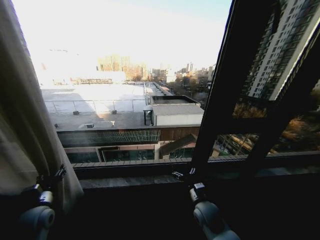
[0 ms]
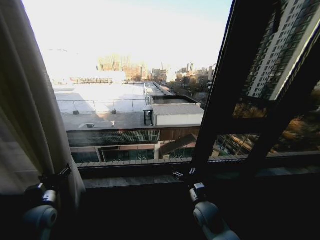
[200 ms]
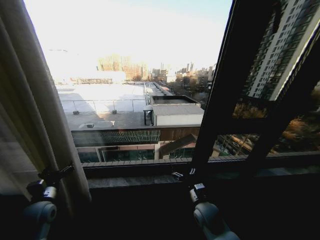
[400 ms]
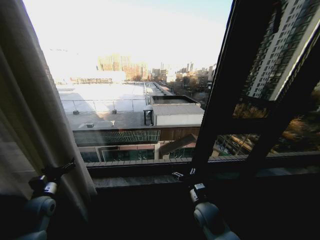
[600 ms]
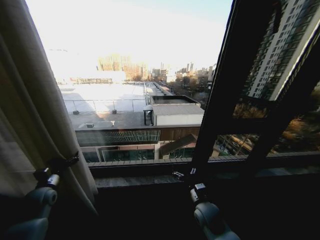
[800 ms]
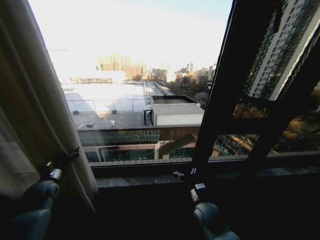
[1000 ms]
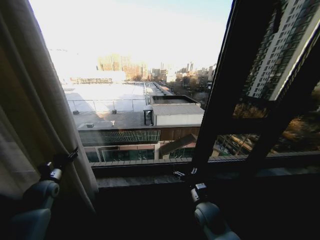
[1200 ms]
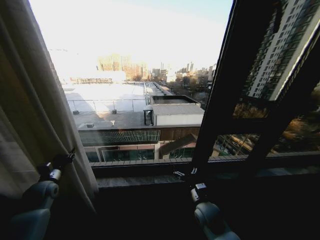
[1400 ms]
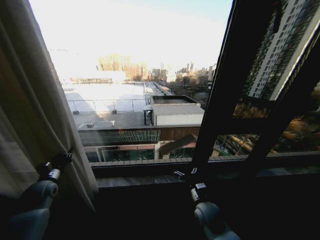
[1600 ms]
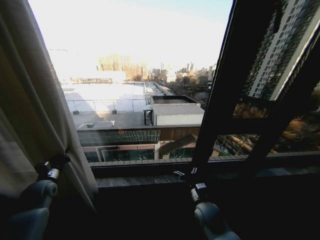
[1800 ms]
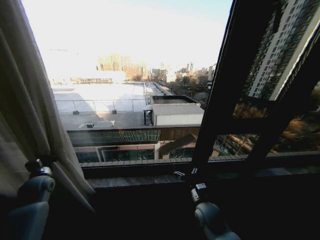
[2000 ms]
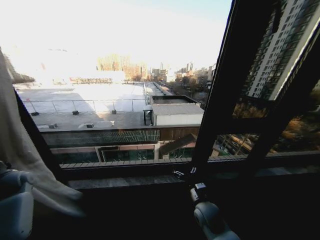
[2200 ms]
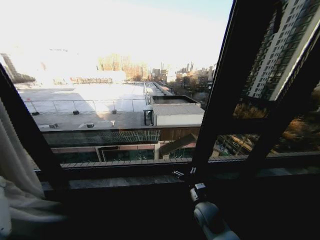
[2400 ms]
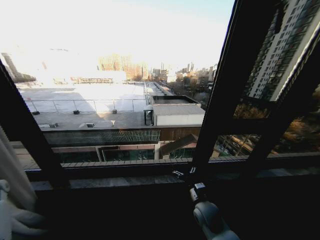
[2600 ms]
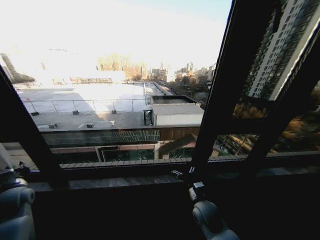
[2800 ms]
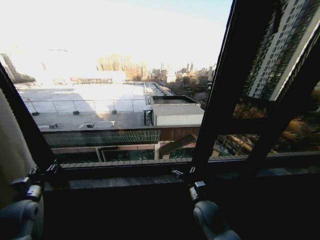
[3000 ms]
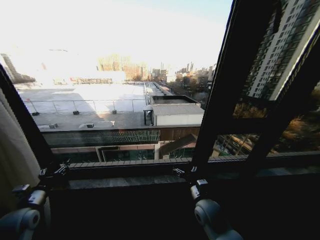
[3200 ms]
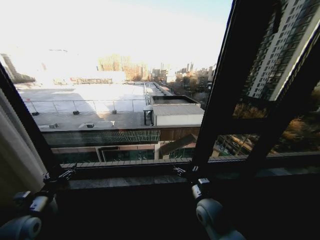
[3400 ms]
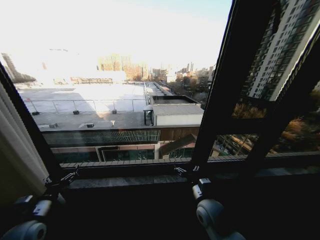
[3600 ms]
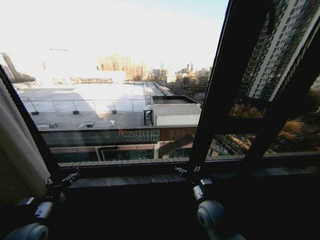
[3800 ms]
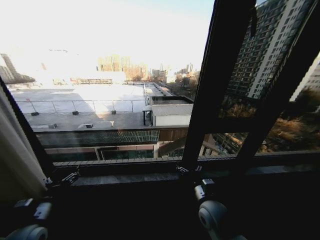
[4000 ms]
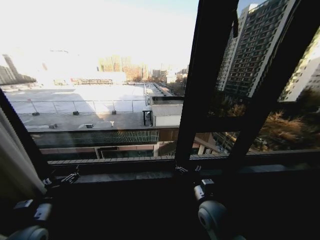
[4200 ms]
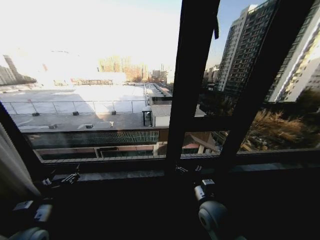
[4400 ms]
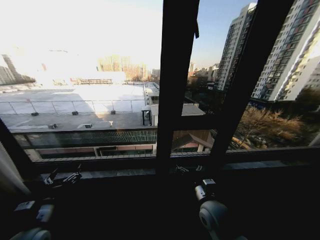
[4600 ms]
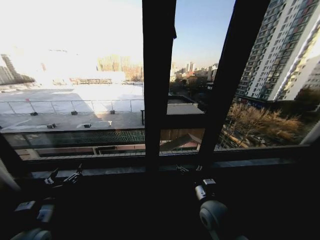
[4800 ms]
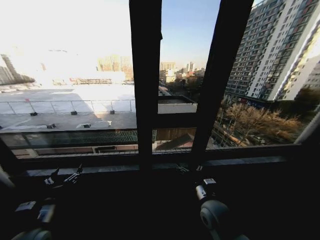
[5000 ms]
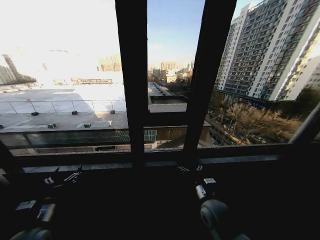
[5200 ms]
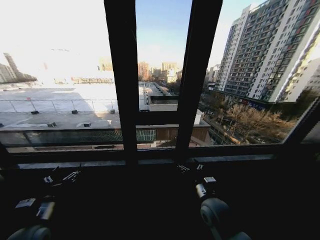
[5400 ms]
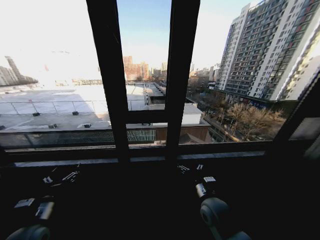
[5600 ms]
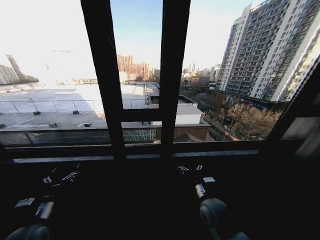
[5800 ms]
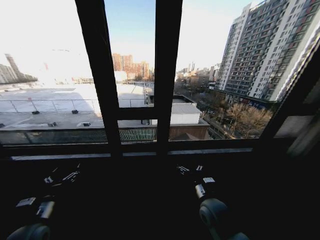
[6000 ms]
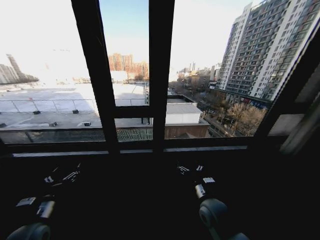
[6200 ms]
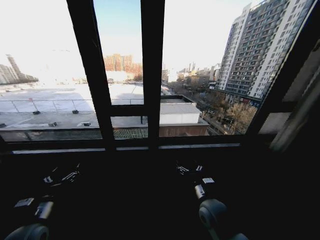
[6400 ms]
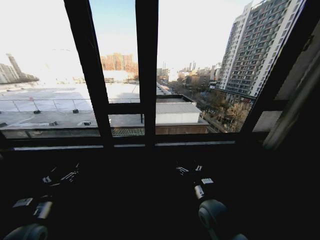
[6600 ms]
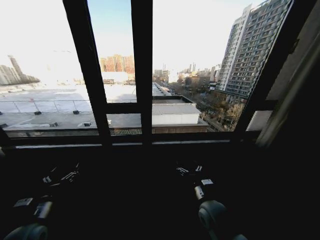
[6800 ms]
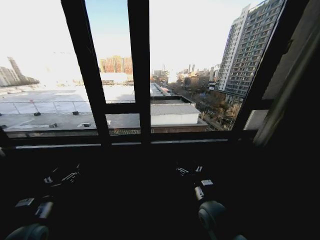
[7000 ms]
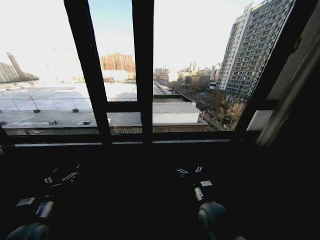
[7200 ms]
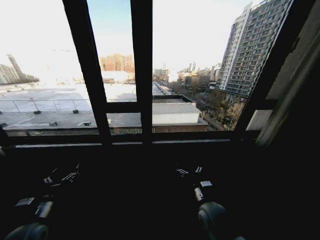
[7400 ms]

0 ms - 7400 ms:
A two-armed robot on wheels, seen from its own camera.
Task of the whole recording: Open the curtains by pulling them apart, changing their state from closed to fully open.
0 ms - 1400 ms: The left gripper shifts approximately 10 cm forward, and opens and closes again.
1400 ms - 3000 ms: The left gripper is displaced backward by some 10 cm, goes to the left and returns, some 20 cm each way, and closes, then reopens.
3000 ms - 4400 ms: The left gripper travels to the right and backward by approximately 10 cm, and opens its fingers. The right gripper is displaced upward by roughly 5 cm.

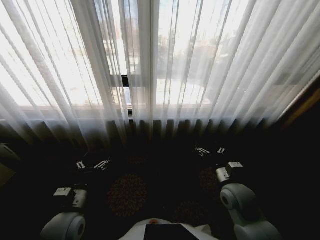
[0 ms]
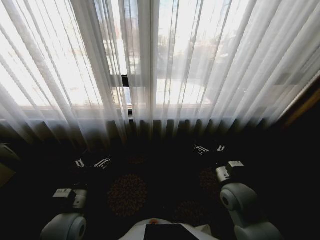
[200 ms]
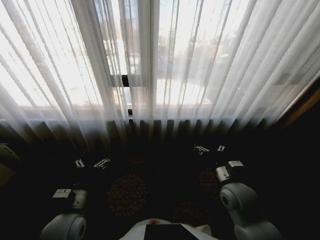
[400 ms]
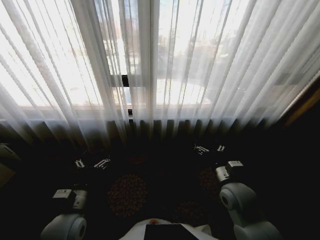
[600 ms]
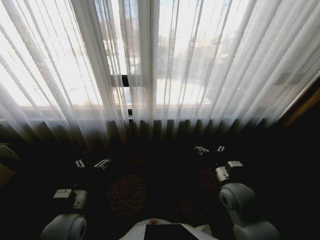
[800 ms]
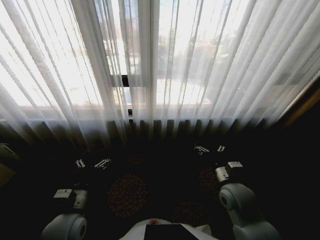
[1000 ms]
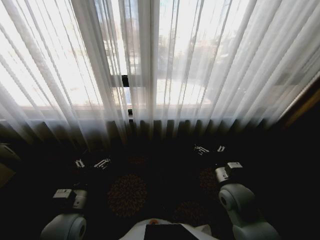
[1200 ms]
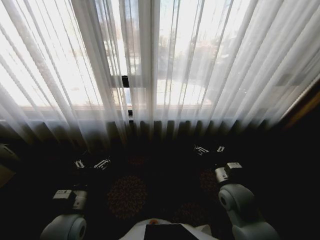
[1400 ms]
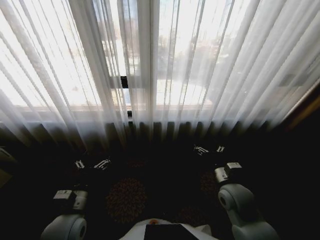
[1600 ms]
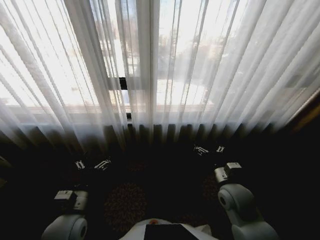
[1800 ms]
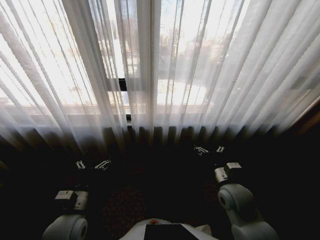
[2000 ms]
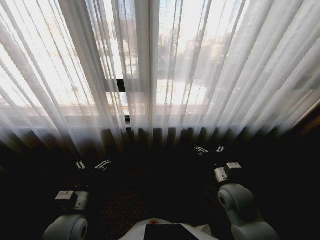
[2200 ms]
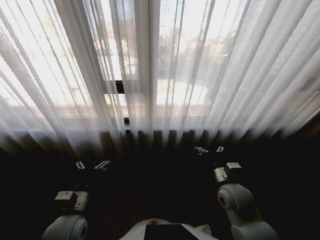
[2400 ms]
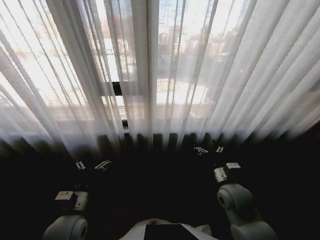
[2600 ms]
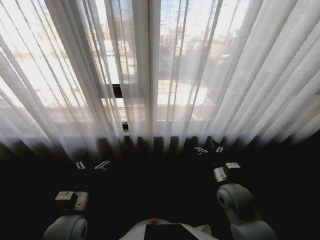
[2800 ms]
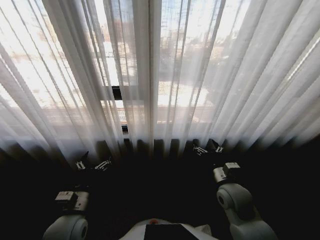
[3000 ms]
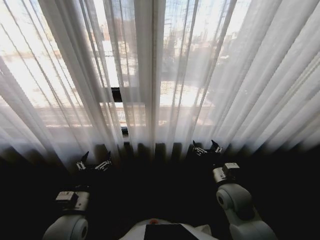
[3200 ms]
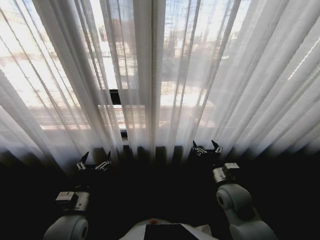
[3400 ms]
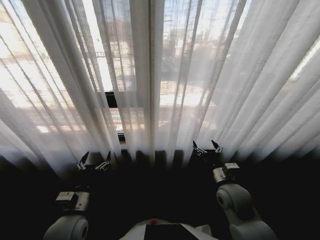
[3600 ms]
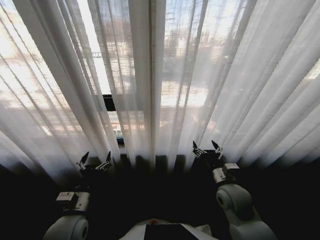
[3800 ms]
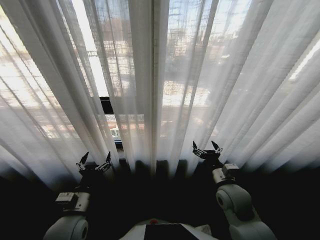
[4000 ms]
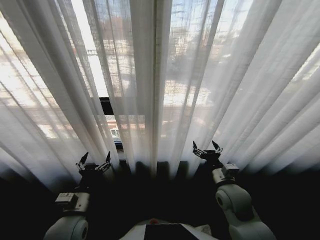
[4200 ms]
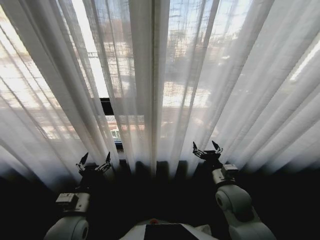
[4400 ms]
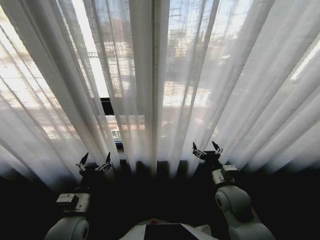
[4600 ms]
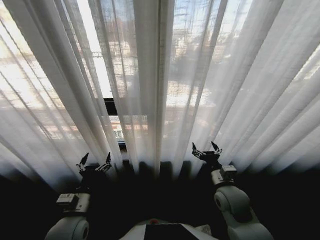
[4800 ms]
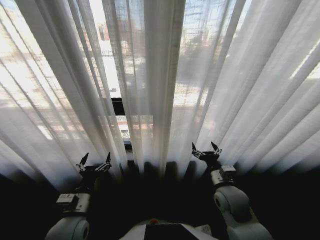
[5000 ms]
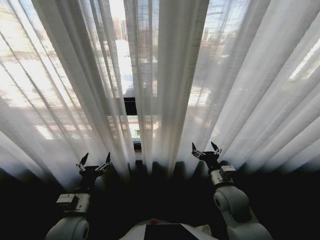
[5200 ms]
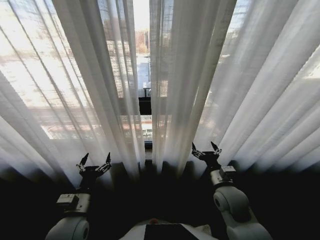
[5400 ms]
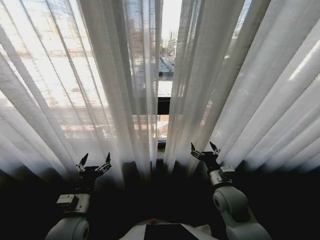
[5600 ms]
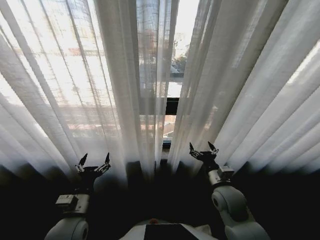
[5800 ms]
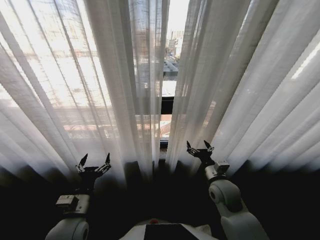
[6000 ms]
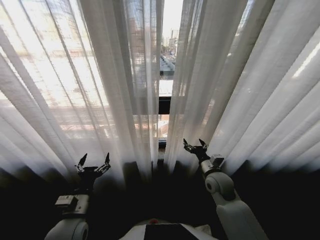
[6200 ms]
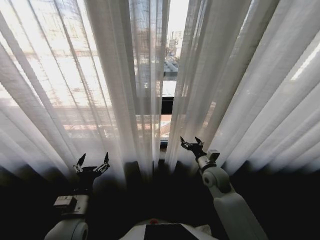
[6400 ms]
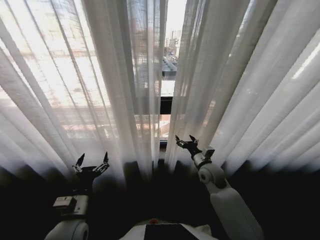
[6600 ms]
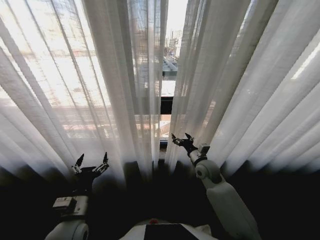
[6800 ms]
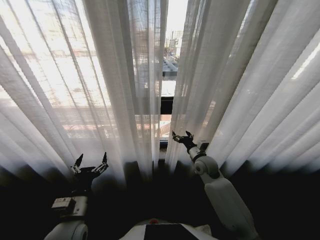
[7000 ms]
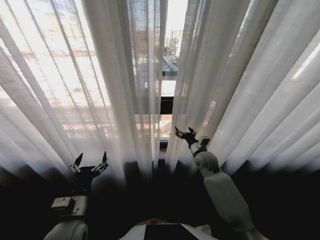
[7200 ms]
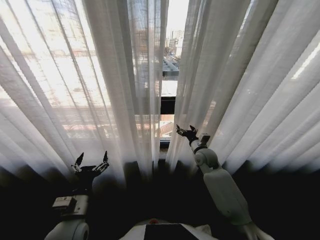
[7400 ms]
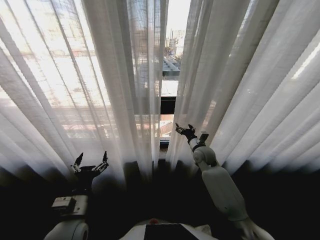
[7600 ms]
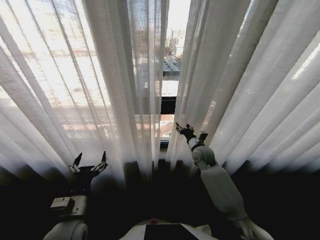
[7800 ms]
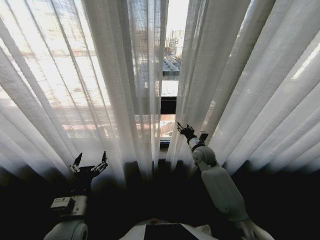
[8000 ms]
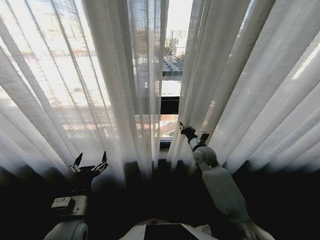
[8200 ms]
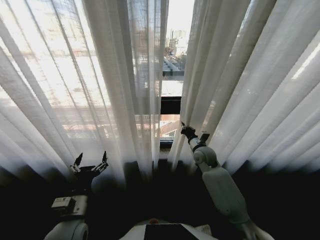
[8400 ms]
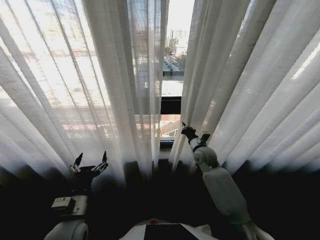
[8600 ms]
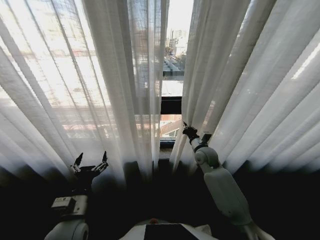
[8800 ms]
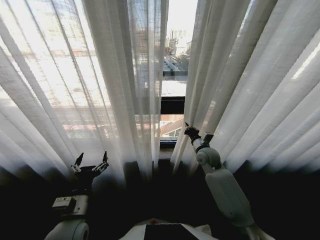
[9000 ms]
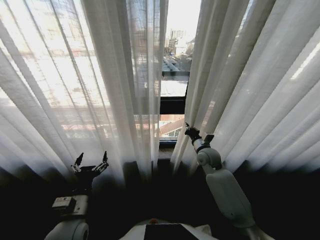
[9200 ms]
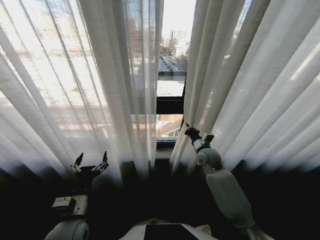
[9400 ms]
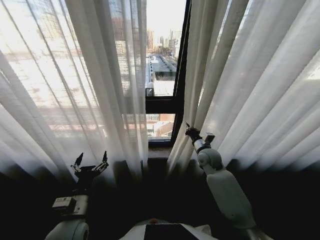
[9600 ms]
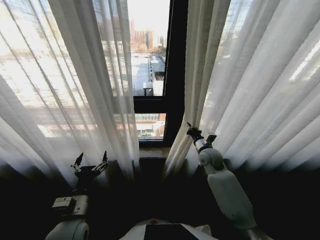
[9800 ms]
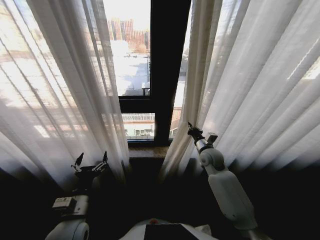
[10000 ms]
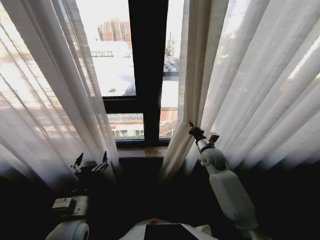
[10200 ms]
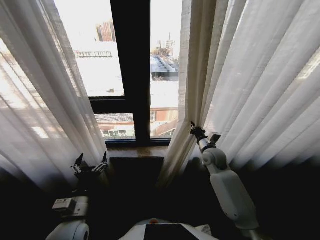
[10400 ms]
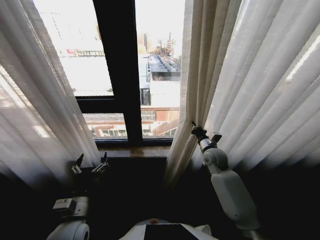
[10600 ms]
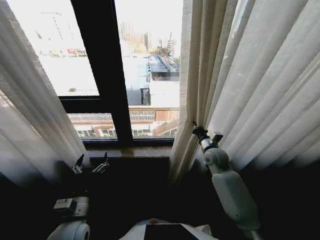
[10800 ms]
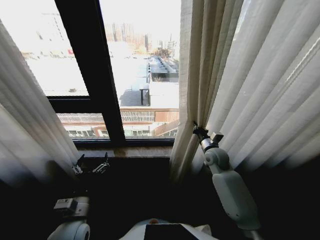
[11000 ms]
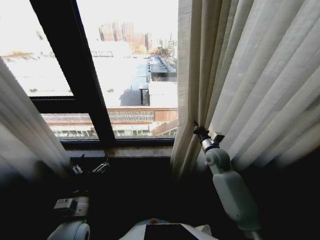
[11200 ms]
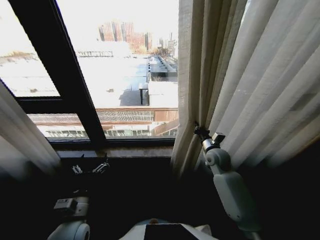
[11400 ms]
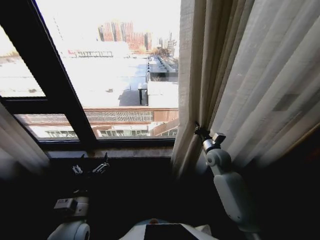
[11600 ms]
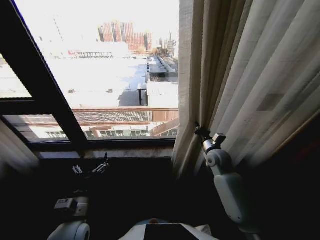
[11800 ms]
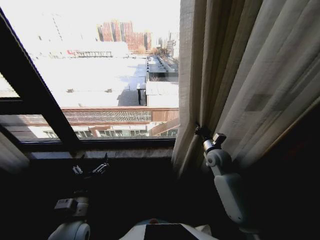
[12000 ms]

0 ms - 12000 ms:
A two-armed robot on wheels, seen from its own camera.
Task of the whole recording: Open the curtains by pulling them apart, changing their state from closed to fully open.
6000 ms - 7600 ms: The right gripper goes approximately 15 cm forward.
7600 ms - 9000 ms: The right gripper closes up.

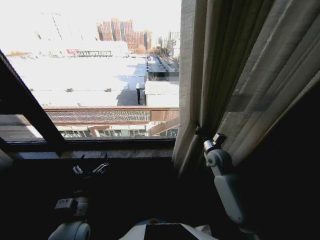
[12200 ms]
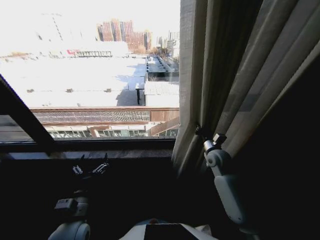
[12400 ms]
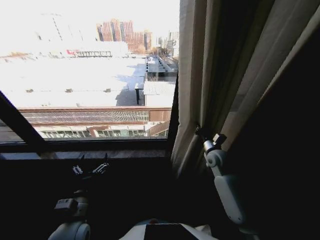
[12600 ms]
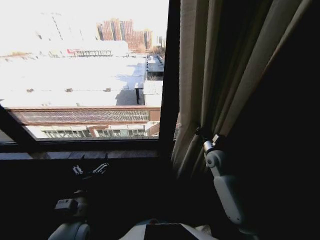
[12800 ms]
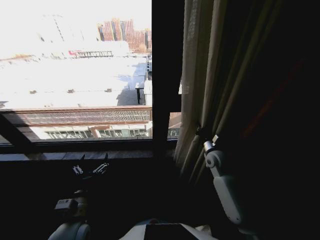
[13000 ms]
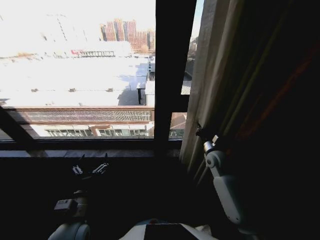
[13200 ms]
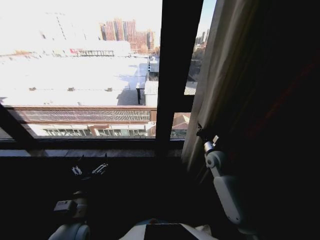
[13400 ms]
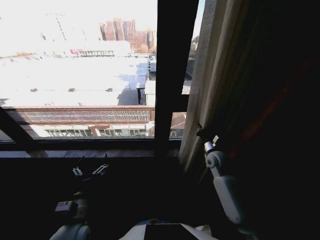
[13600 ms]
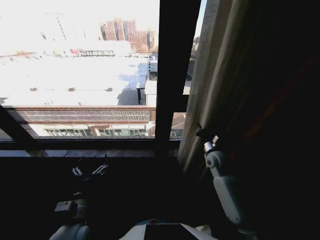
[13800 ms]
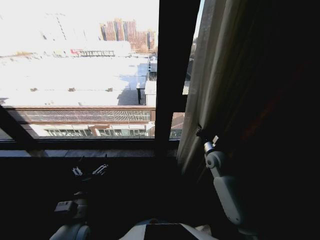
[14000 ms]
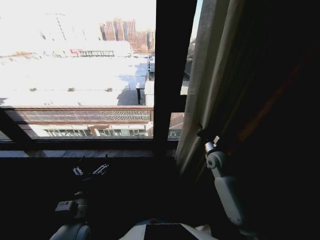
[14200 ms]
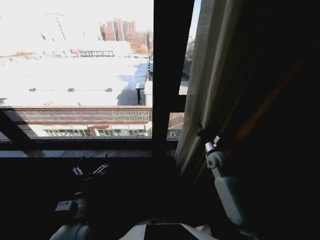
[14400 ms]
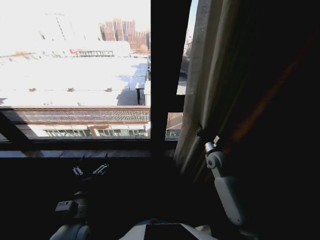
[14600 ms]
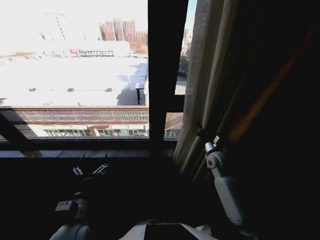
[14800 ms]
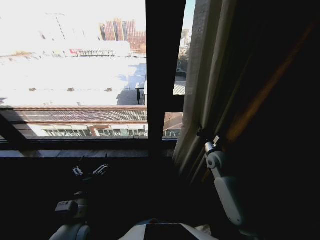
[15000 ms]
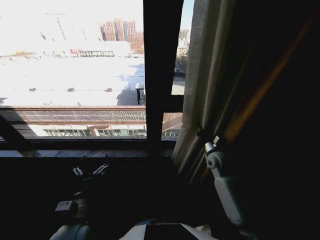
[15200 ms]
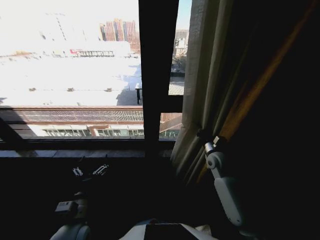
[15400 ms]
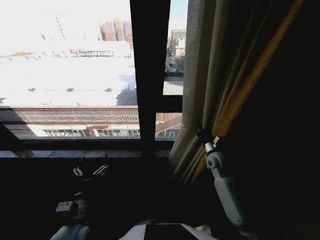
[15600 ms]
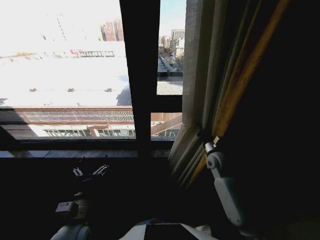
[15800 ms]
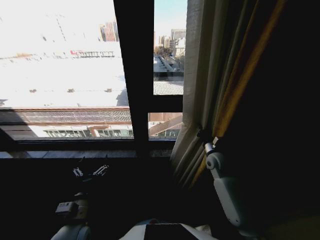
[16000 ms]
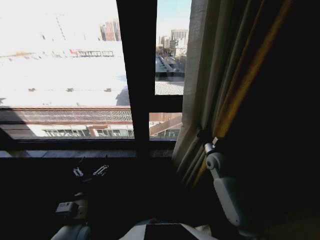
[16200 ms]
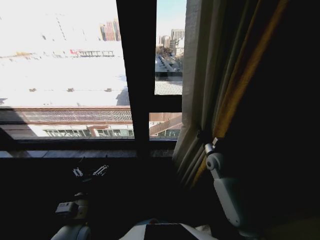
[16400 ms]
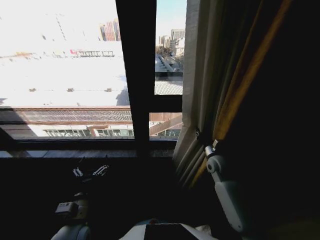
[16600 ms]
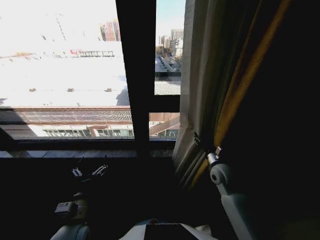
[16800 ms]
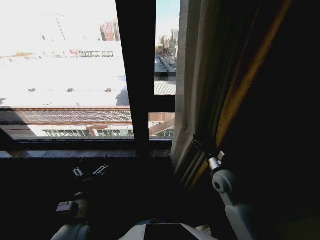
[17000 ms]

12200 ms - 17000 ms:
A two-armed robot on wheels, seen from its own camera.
Task of the whole recording: Open the curtains by pulling them apart, changing their state from closed to fully open.
13800 ms - 15400 ms: Both grippers stay about where they are.
15400 ms - 17000 ms: The right gripper travels backward by some 10 cm, and opens its fingers.
